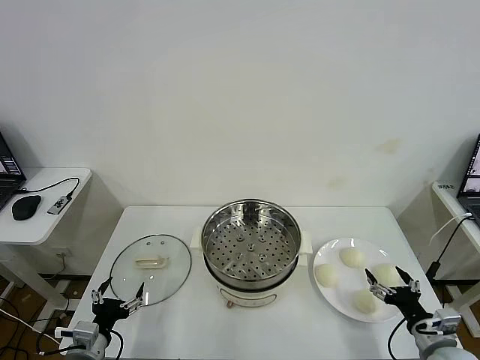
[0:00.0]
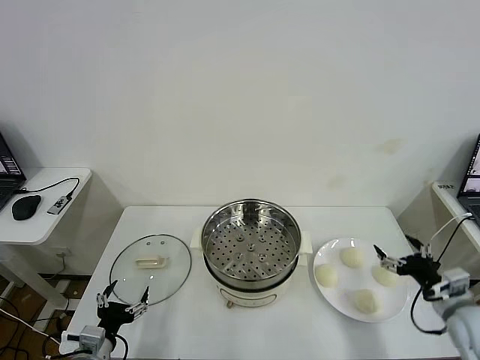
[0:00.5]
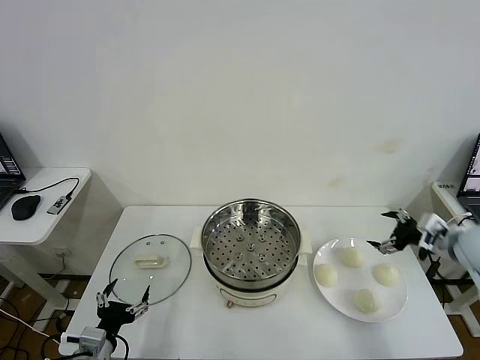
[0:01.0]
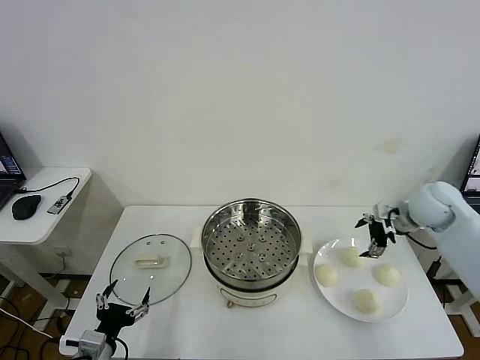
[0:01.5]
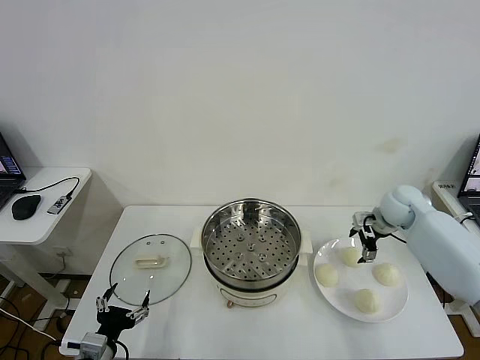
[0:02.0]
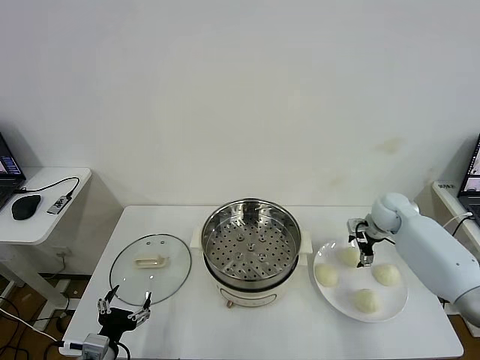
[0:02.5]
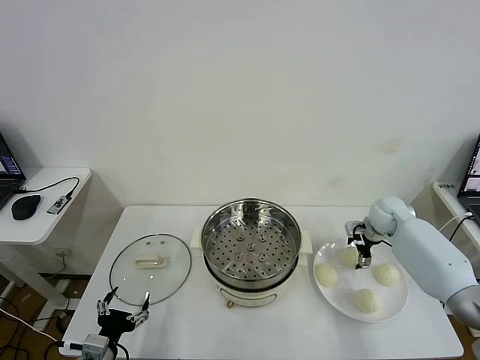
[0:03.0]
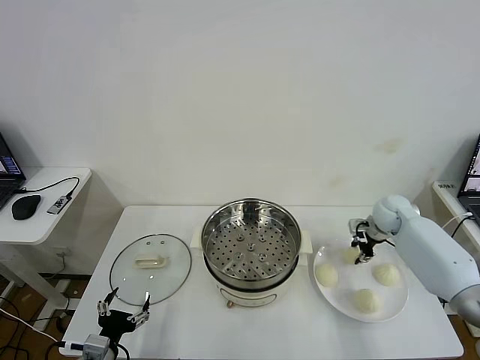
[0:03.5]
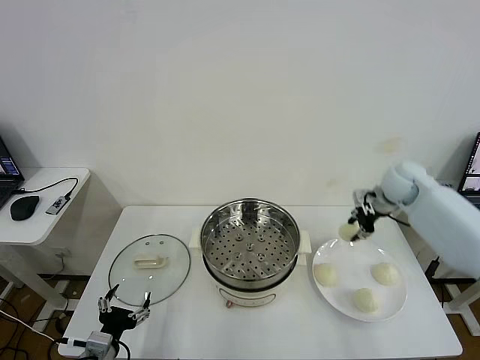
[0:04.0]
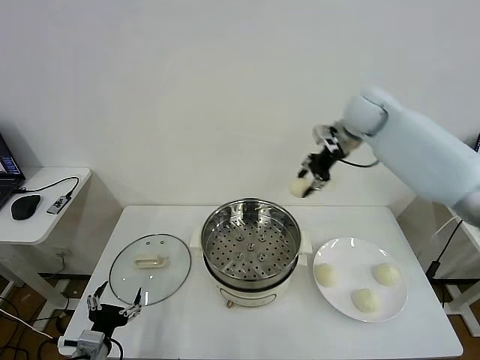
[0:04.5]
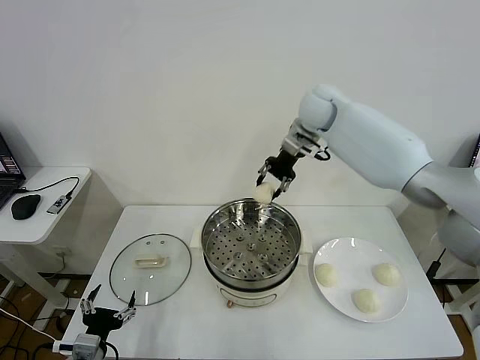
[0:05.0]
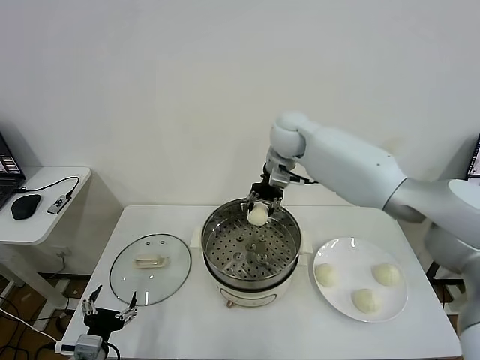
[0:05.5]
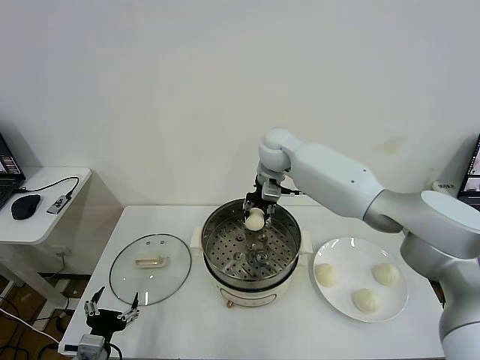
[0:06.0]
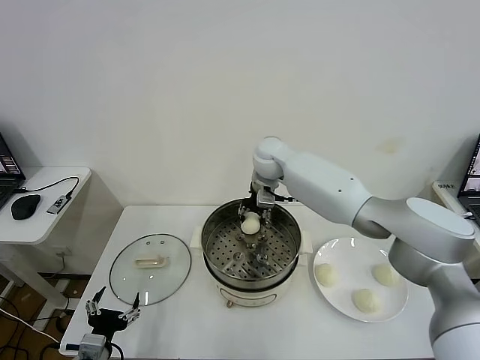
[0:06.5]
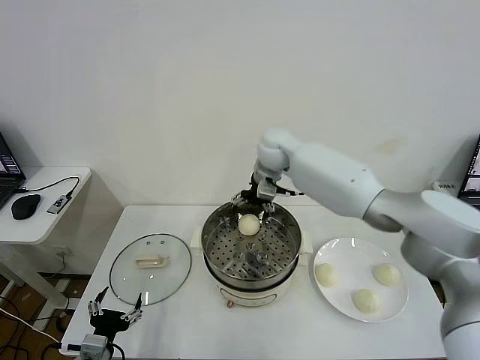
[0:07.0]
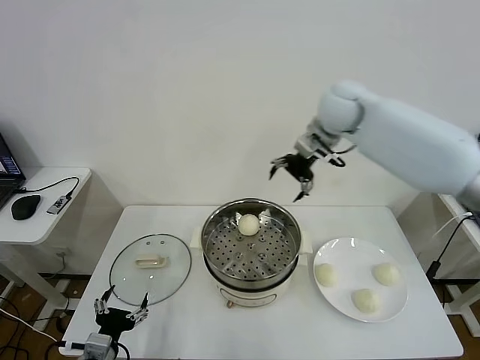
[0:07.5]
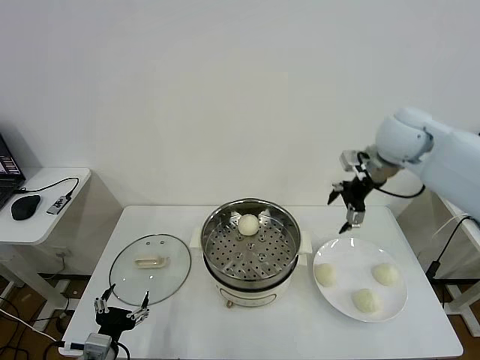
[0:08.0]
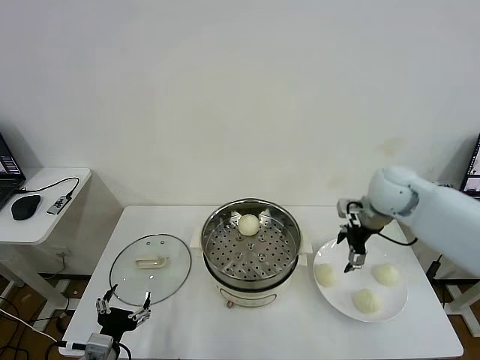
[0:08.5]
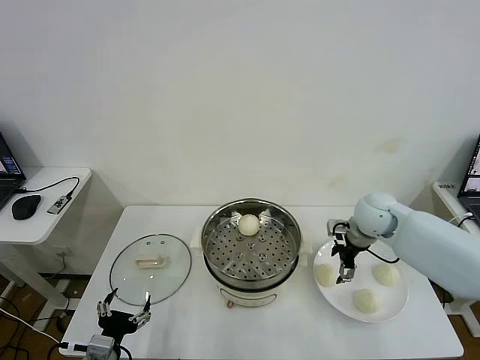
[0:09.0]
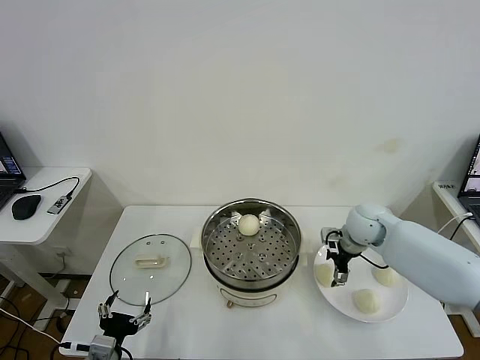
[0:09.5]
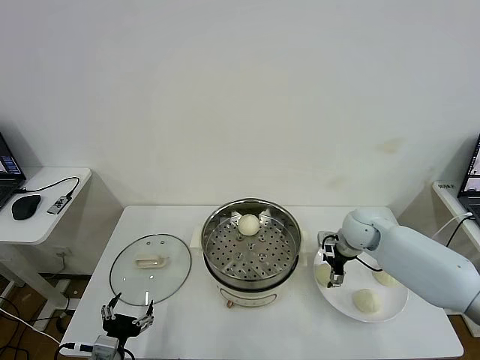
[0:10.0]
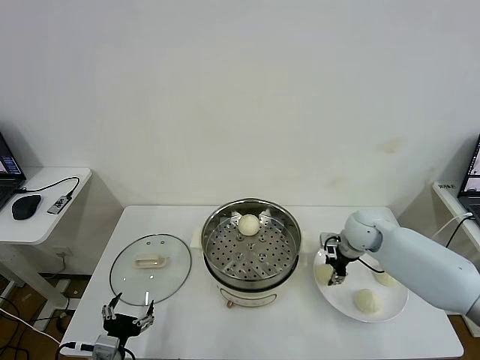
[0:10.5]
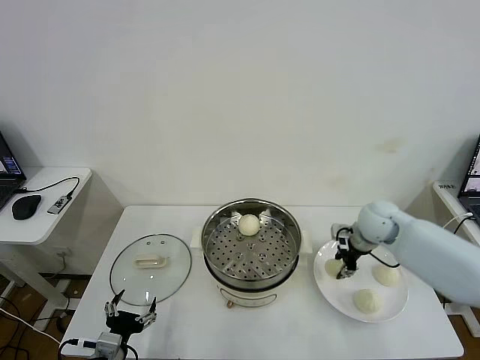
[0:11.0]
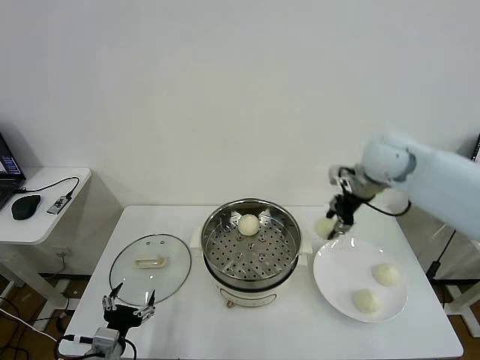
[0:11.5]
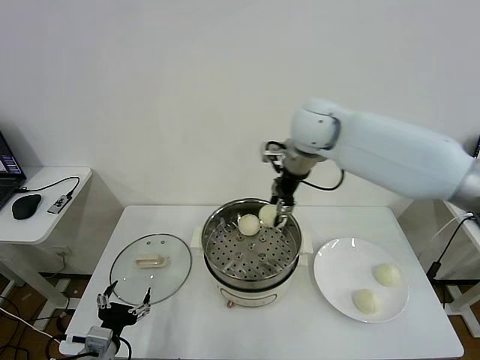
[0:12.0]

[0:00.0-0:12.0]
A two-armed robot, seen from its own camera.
Task of the whole recording: take steamed baozi put them in steamer then cover it.
Step, 0:00.0 to 0:03.5: Grasp the baozi in the plate with right gripper.
Step, 0:04.0 to 0:06.5: Place the baozi on the steamer with right gripper.
Step, 0:07.0 to 0:10.5: Grasp the baozi in the plate with right gripper.
0:02.0 to 0:04.0: The right gripper shifts some 15 cm upward, and closes.
0:04.0 to 0:06.0: The right gripper travels to the left by approximately 25 cm.
0:06.0 to 0:08.0: The right gripper is displaced to the right and backward by some 25 cm, and opens.
0:08.0 to 0:10.0: The right gripper goes roughly 20 cm downward.
0:10.0 to 0:12.0: The right gripper travels upward and to the left by some 30 cm, and closes up.

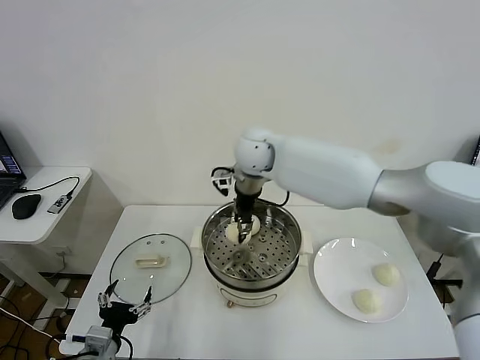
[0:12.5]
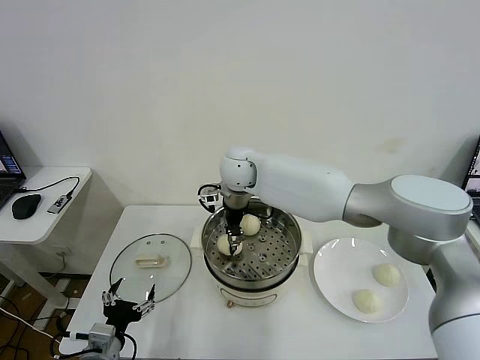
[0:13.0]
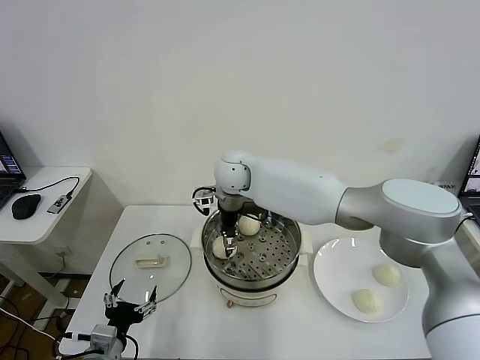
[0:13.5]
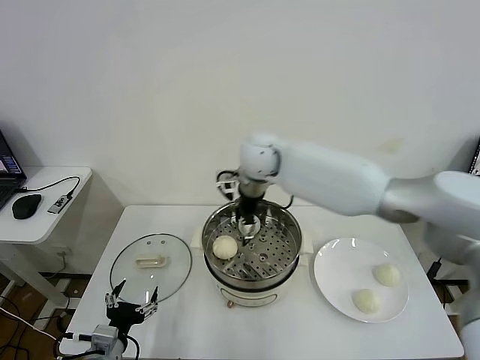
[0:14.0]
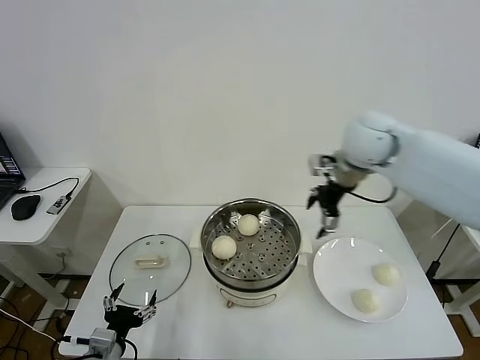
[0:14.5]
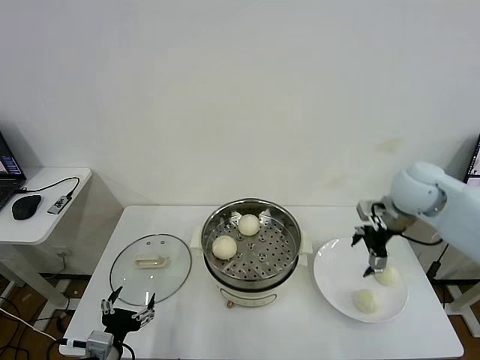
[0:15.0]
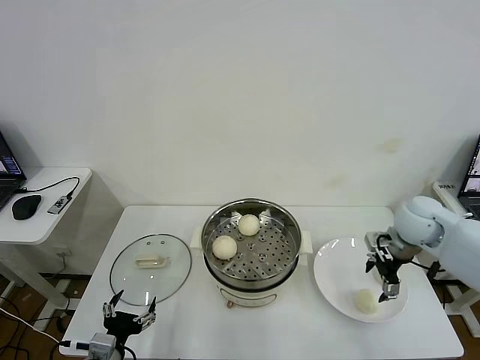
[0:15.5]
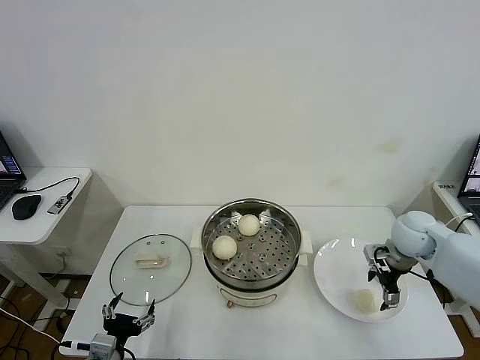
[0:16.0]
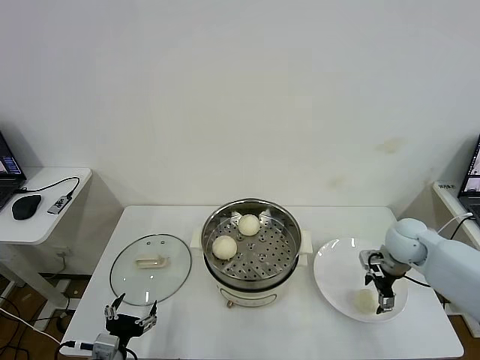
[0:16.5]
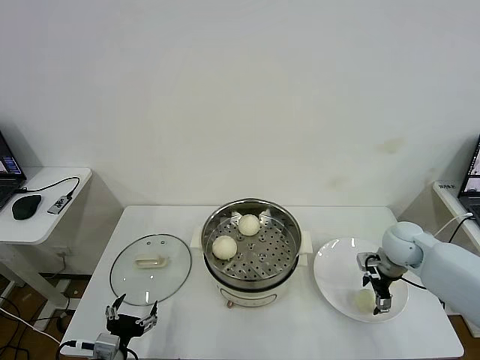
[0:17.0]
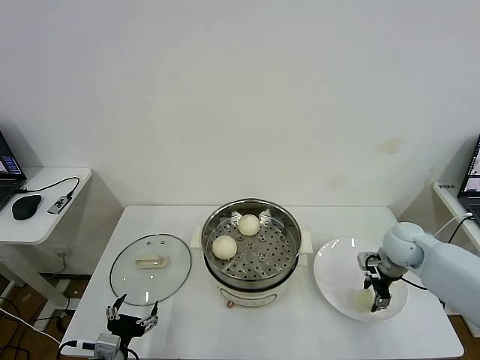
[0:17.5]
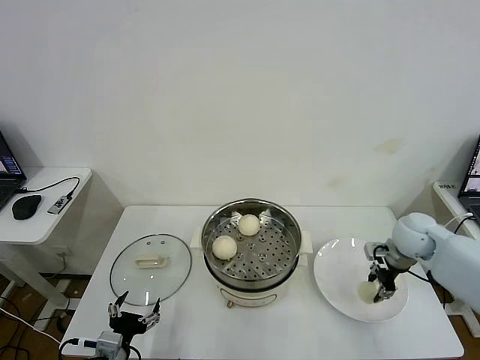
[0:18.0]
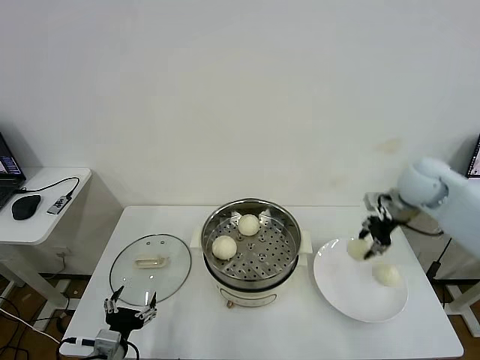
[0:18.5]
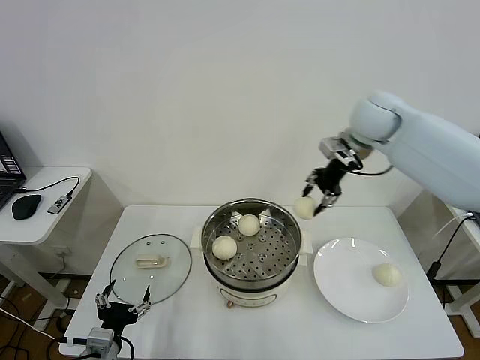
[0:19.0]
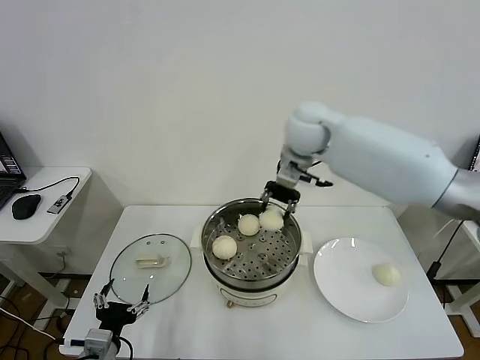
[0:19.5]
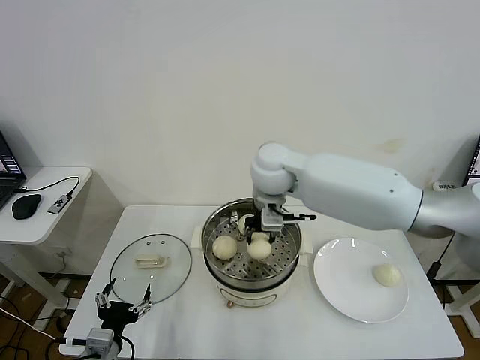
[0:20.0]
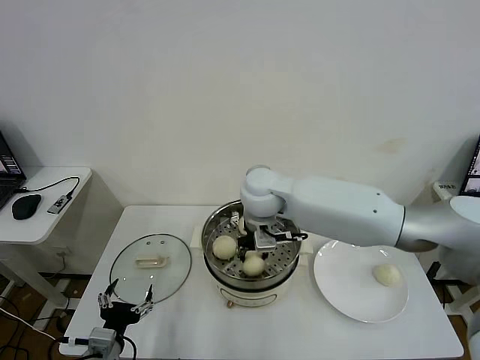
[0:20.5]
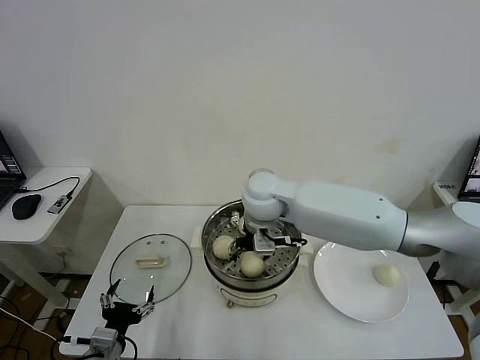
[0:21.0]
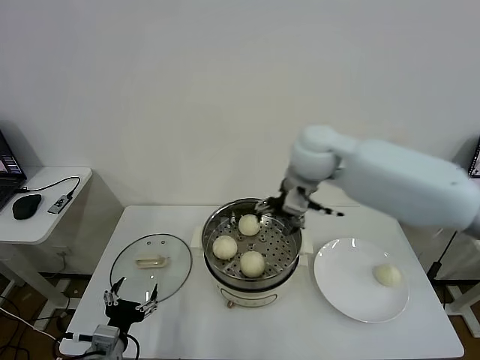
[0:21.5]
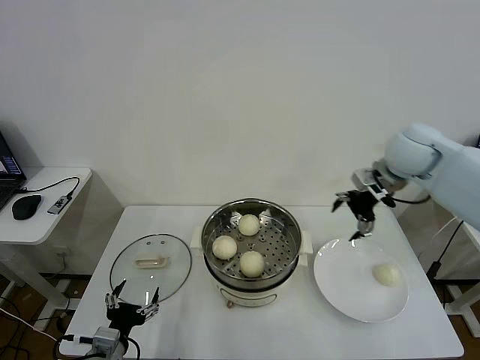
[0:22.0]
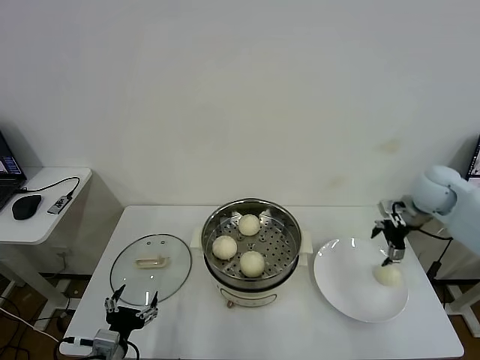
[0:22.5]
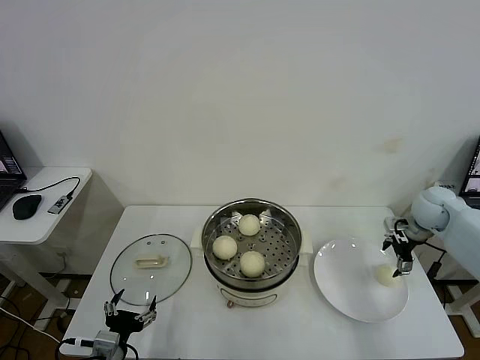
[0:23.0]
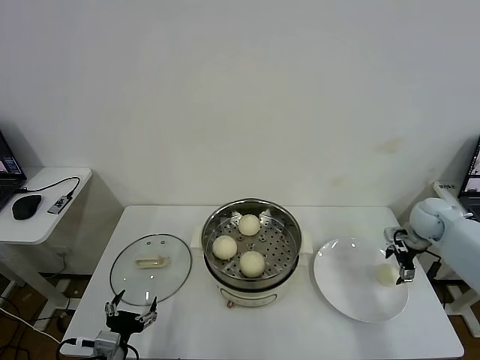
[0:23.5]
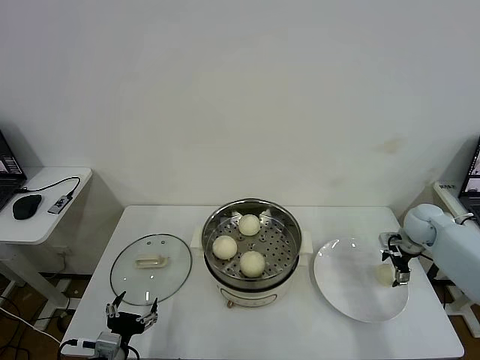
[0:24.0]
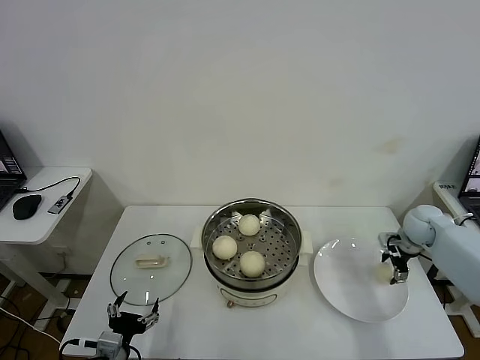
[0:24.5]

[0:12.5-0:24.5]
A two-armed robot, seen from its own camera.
Task of the whole recording: take steamed baozi put them in steamer then cover it.
Step, 0:14.0 to 0:17.5: Grasp the baozi in the plate with right gripper.
Step, 0:18.0 to 0:21.0: Place the baozi on the steamer with right gripper.
0:12.5 to 0:14.5: The right gripper heads to the right, covering about 25 cm, and opens up.
0:14.5 to 0:16.5: The right gripper travels downward and to the right by some 25 cm.
0:16.5 to 0:18.5: The right gripper shifts some 15 cm upward, and closes.
0:18.5 to 0:20.5: The right gripper moves to the left, approximately 30 cm.
0:20.5 to 0:22.5: The right gripper is displaced to the right by about 40 cm, and opens its fingers.
0:22.5 to 0:24.5: The right gripper goes about 10 cm downward, and closes its fingers.

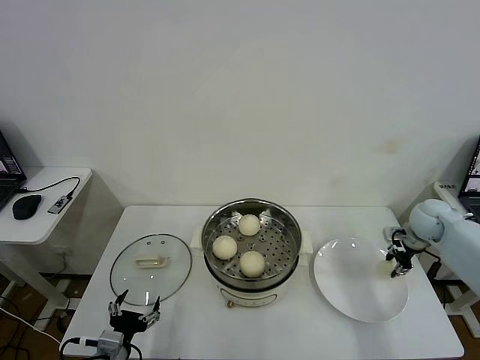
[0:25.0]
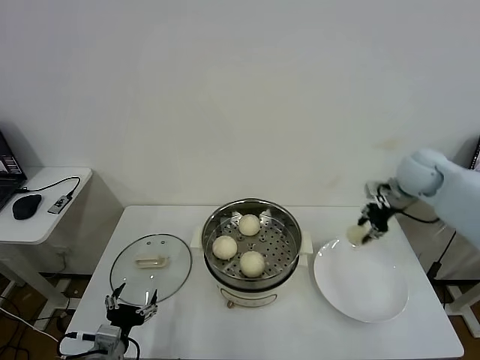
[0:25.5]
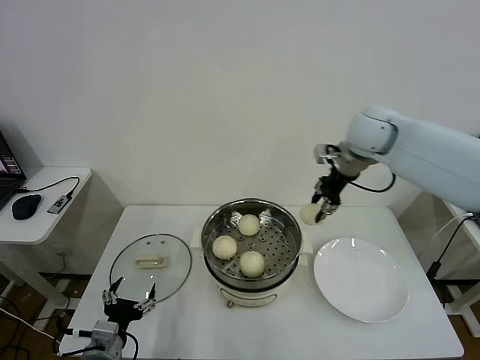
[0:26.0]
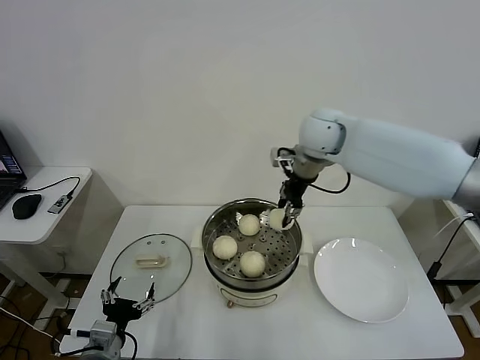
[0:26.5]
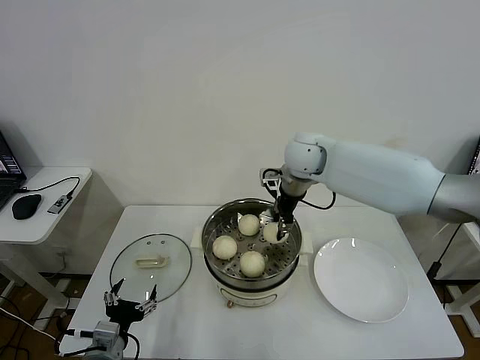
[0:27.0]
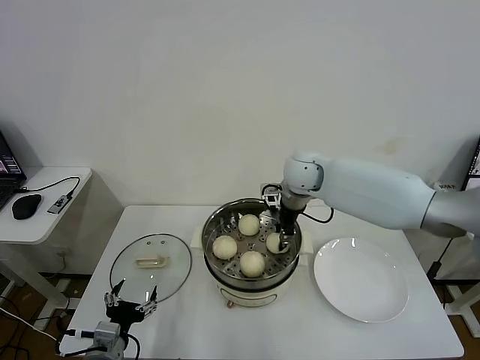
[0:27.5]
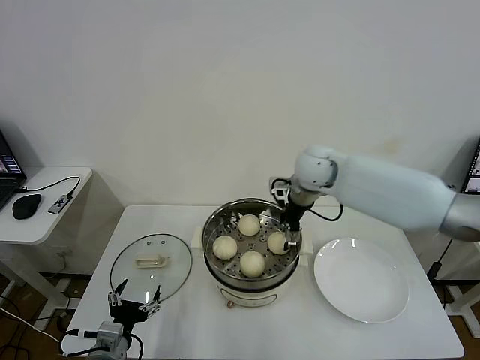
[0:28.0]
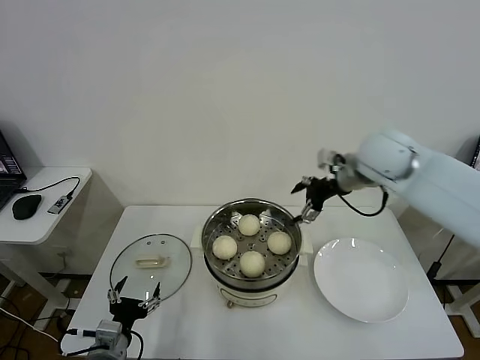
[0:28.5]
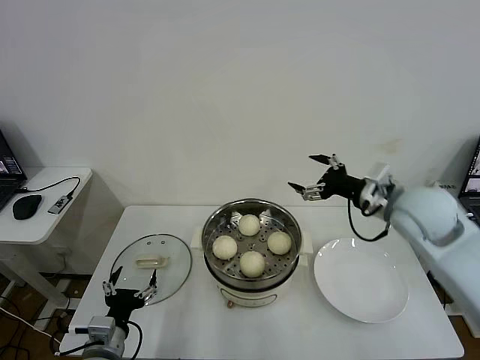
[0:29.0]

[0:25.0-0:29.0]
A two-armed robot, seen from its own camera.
Task of the whole recording: take steamed baozi put them in steamer then cover it.
Step, 0:25.5 to 0:28.0: Place the baozi on the steamer with right gripper.
0:25.0 to 0:27.0: The right gripper travels to the left and upward by roughly 35 cm.
0:27.0 to 0:29.0: The right gripper shifts approximately 25 cm to the right and backward, and opens its fingers.
